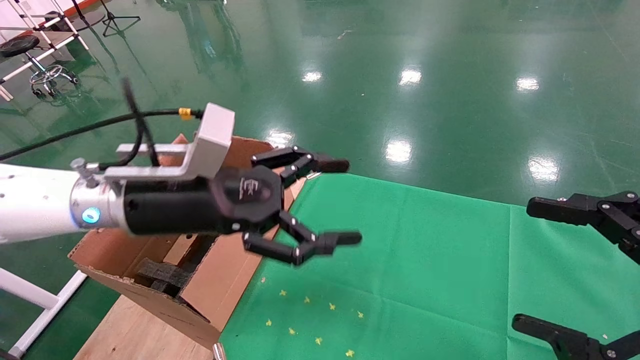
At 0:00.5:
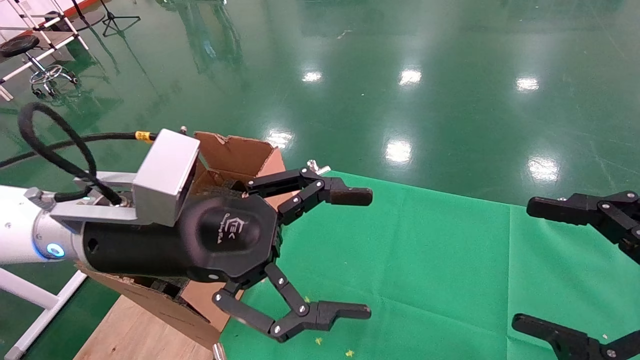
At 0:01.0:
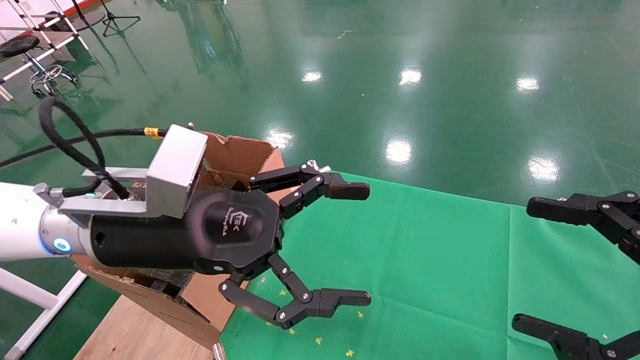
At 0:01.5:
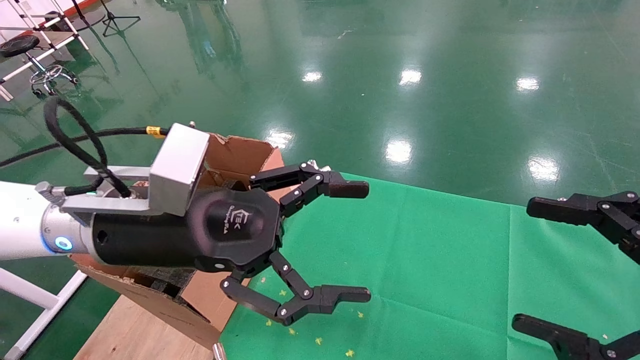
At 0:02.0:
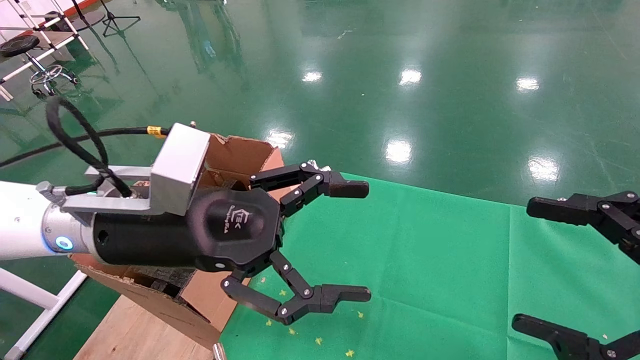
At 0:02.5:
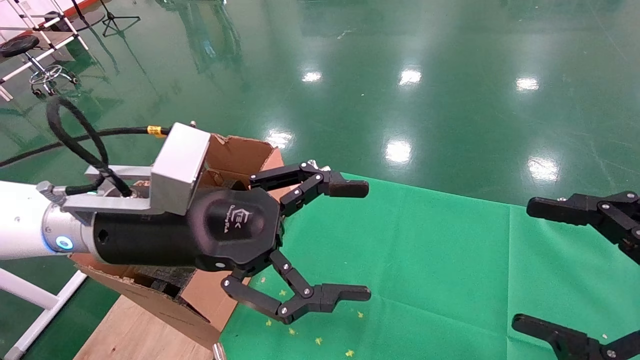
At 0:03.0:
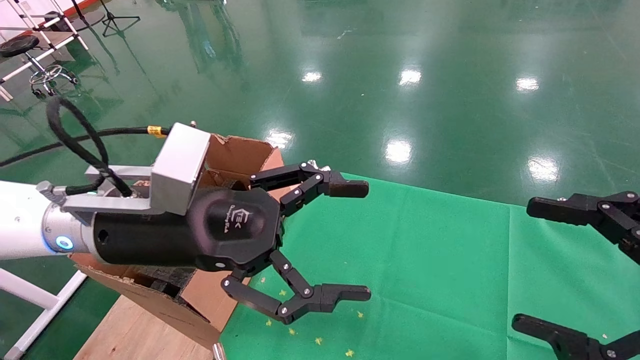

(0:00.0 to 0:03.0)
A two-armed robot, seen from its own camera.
Task of the whole recording: using a robotic arm to pick up a cardboard box and palace it the carton.
0:00.0 - 0:01.5: There are only small adjustments of the grippers.
0:01.5 - 0:03.0: Both grippers stay about where they are.
